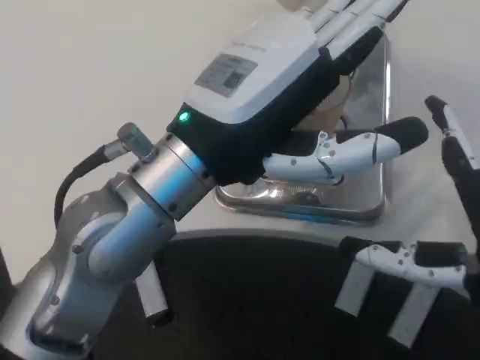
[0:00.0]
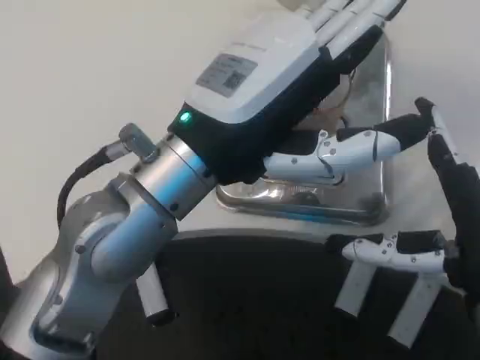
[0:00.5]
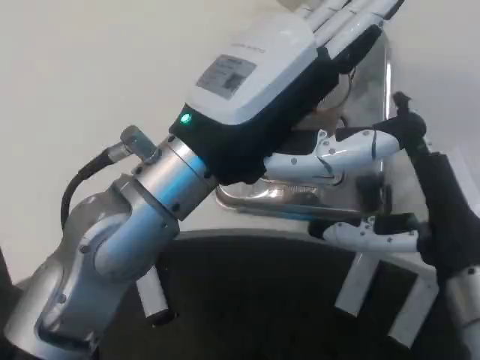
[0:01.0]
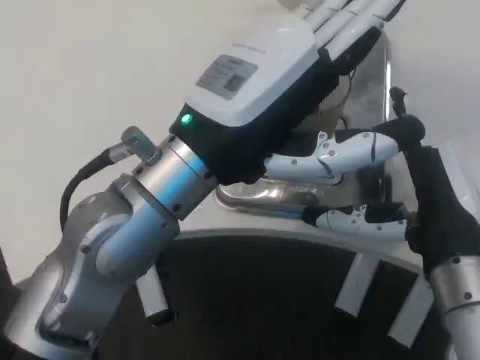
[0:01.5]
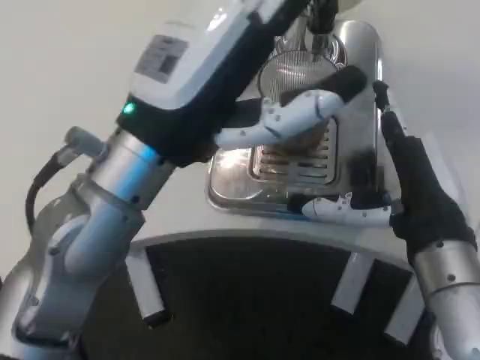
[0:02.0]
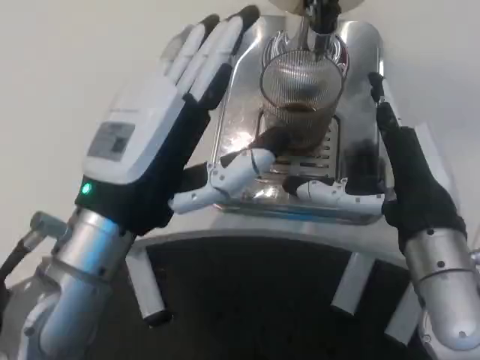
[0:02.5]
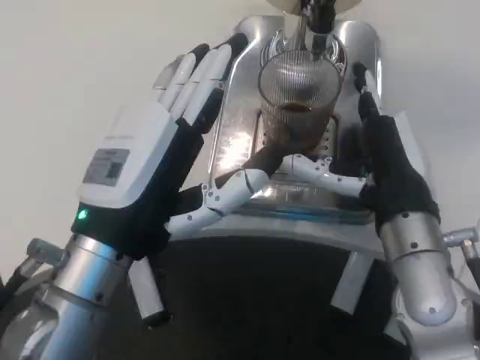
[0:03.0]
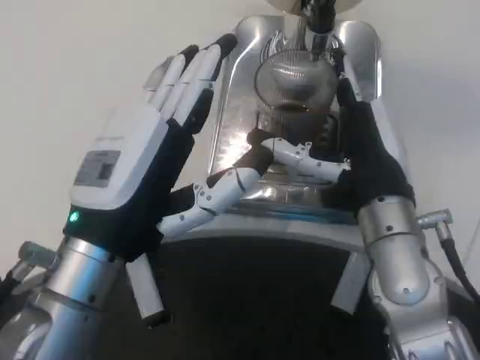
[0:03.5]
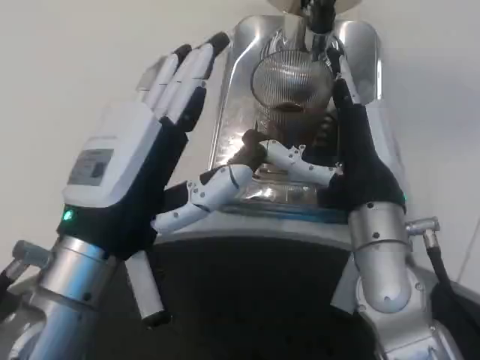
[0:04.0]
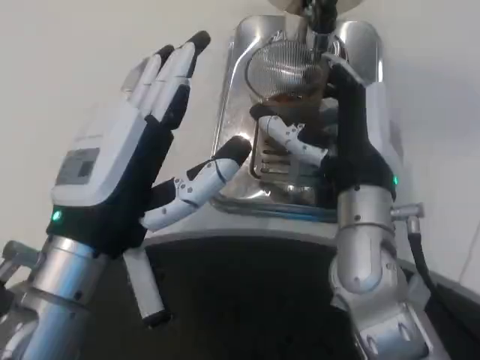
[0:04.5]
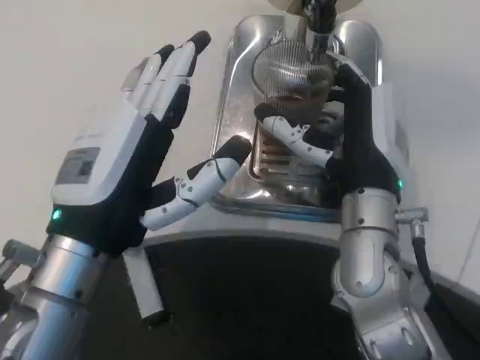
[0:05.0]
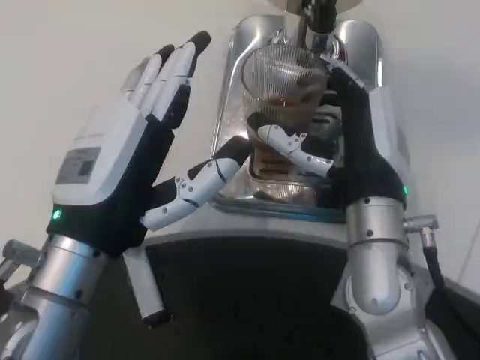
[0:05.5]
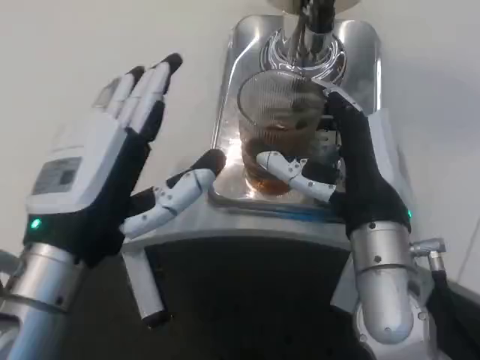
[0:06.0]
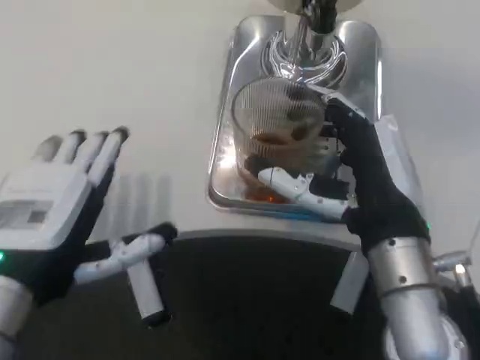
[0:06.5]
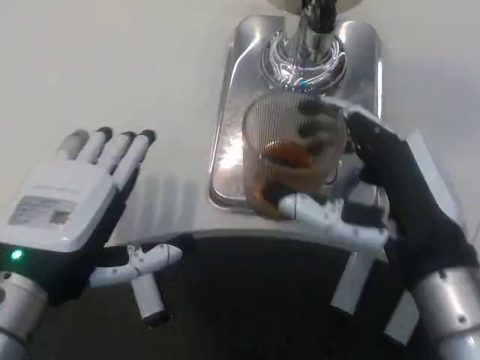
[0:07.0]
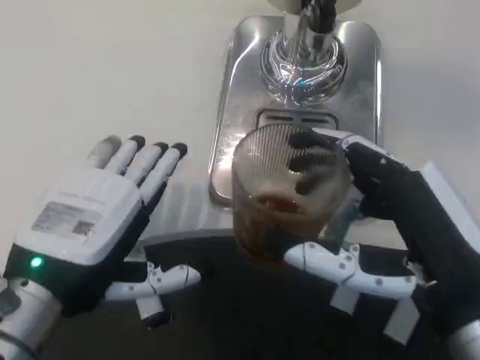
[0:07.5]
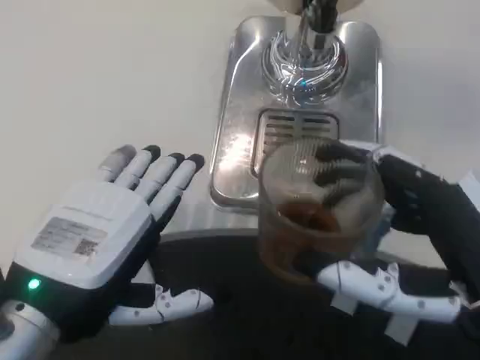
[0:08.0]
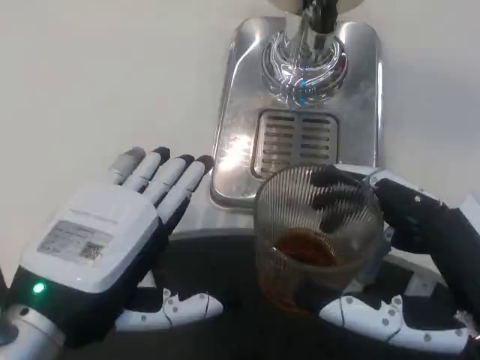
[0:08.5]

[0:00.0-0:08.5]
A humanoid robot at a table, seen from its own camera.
Task of the whole recording: Grasp the cup under the faucet to collect the drink, then remove the cup.
0.0 to 2.0 s: The right hand is displaced forward by approximately 10 cm.
2.0 to 4.0 s: The right hand goes roughly 5 cm forward. Meanwhile the left hand travels downward by roughly 5 cm.
4.0 to 6.5 s: The left hand is displaced to the left by about 5 cm. The right hand moves roughly 5 cm.
6.5 to 8.5 s: The right hand heads backward and to the right, covering about 15 cm.

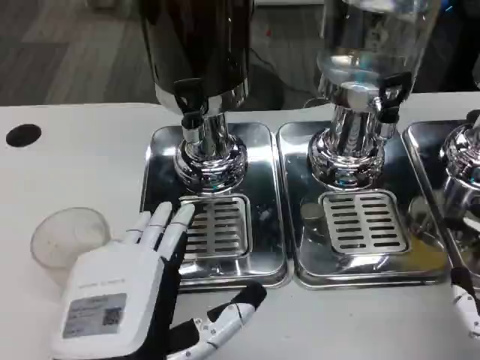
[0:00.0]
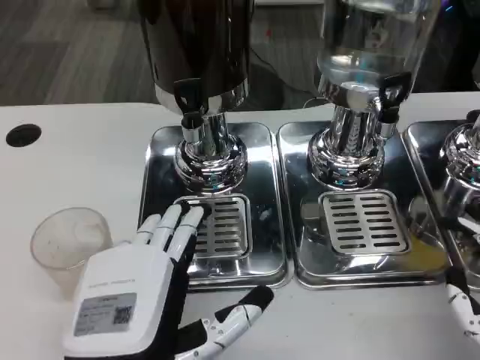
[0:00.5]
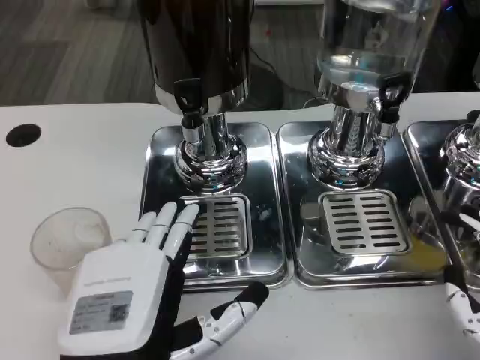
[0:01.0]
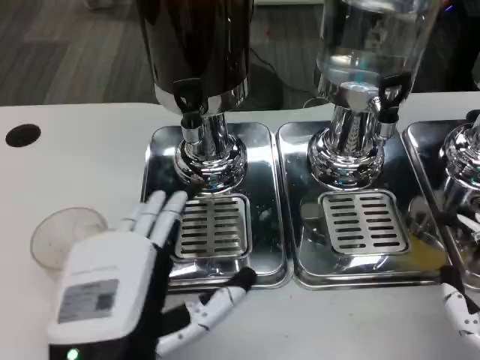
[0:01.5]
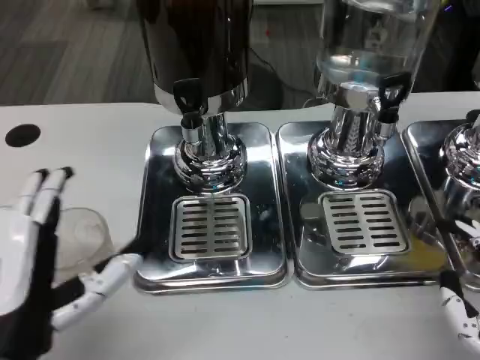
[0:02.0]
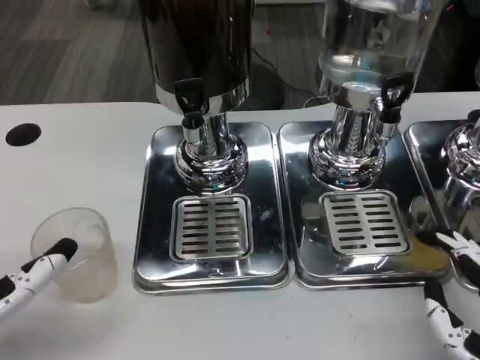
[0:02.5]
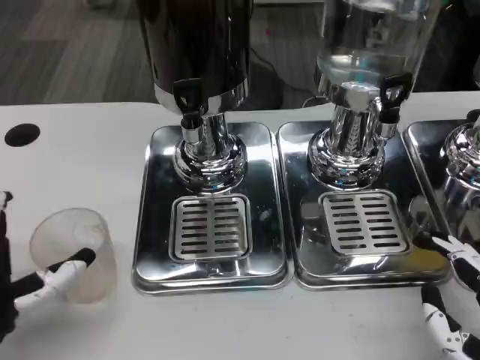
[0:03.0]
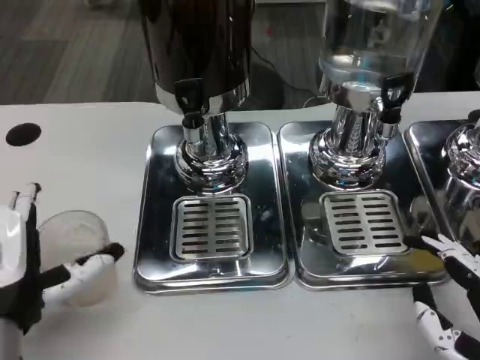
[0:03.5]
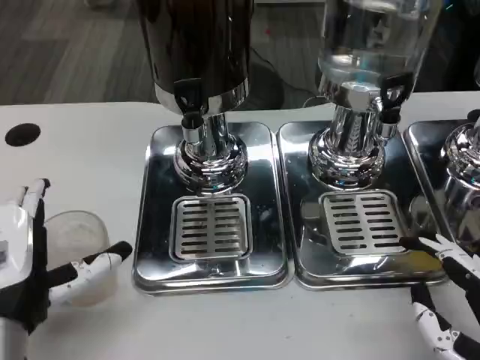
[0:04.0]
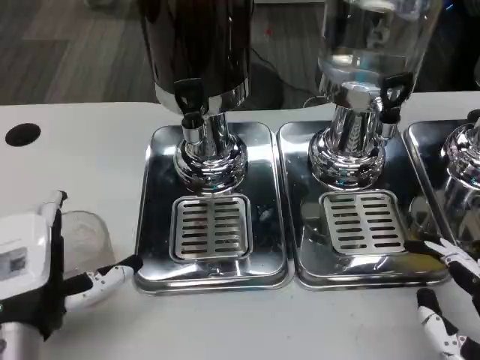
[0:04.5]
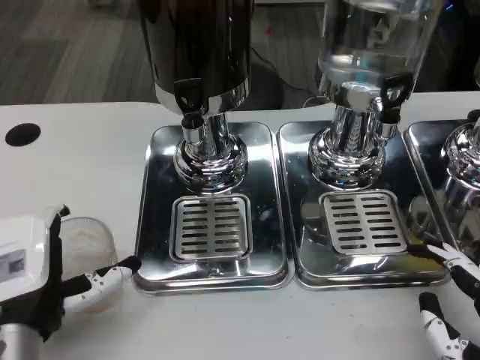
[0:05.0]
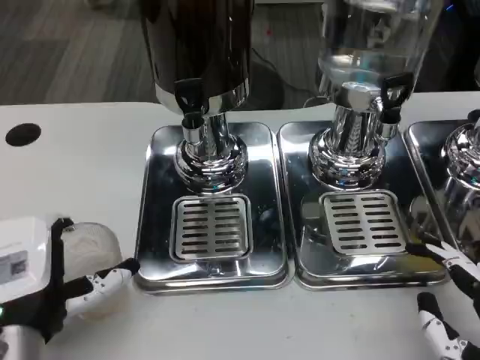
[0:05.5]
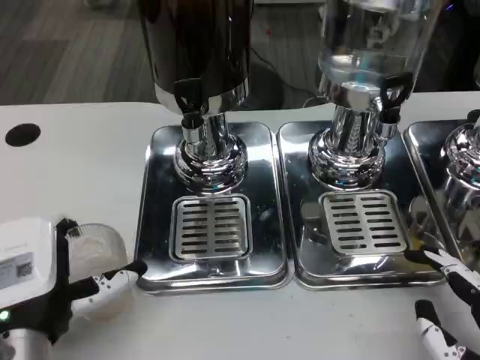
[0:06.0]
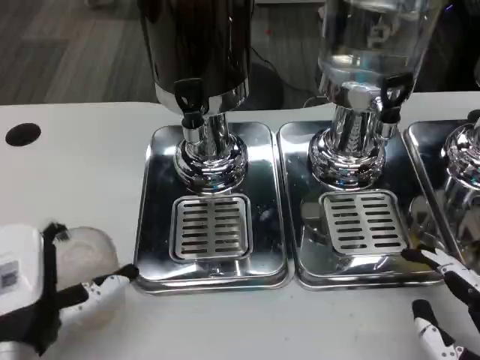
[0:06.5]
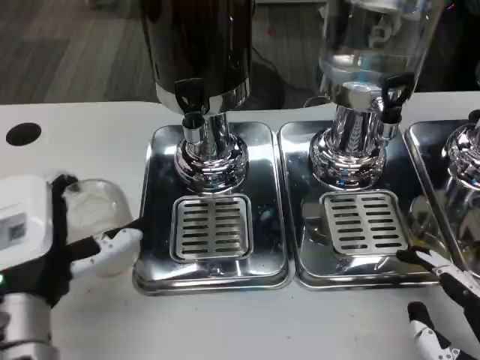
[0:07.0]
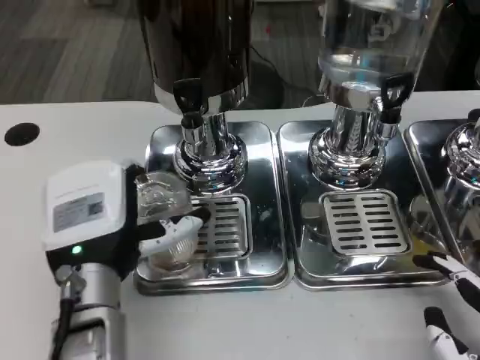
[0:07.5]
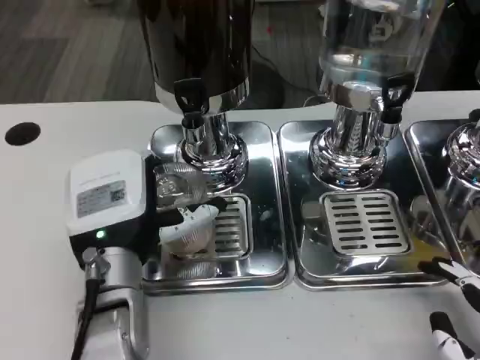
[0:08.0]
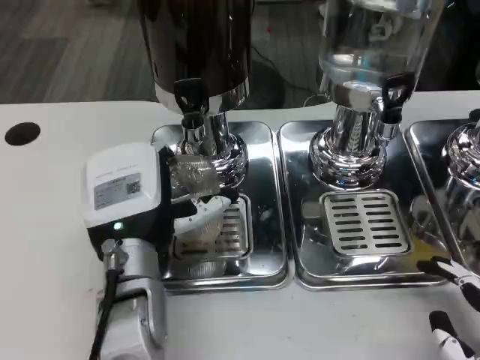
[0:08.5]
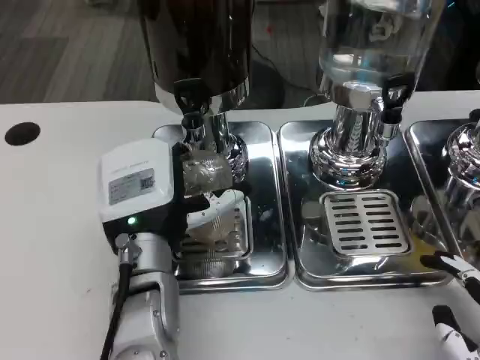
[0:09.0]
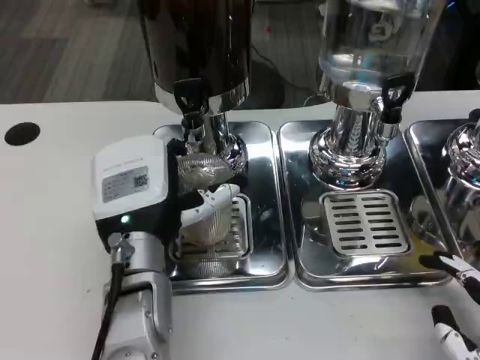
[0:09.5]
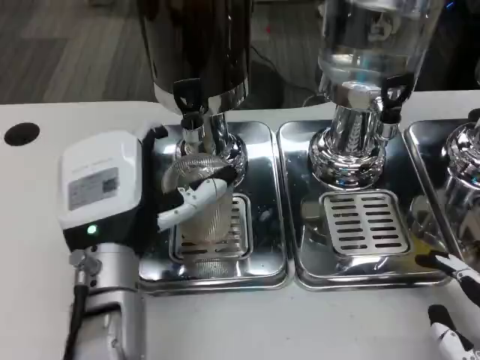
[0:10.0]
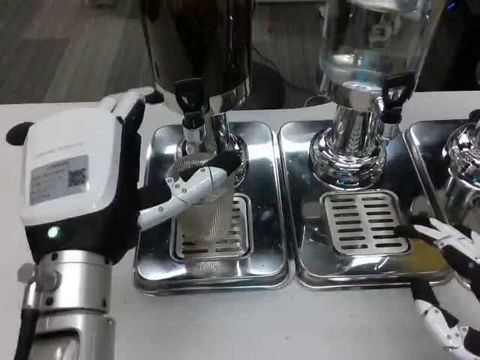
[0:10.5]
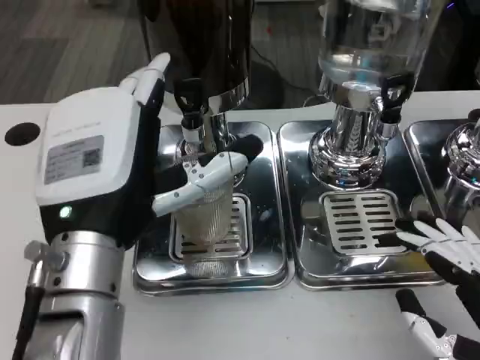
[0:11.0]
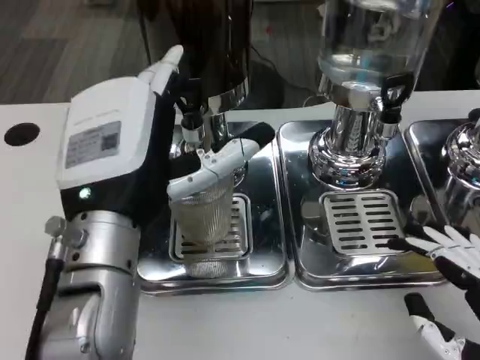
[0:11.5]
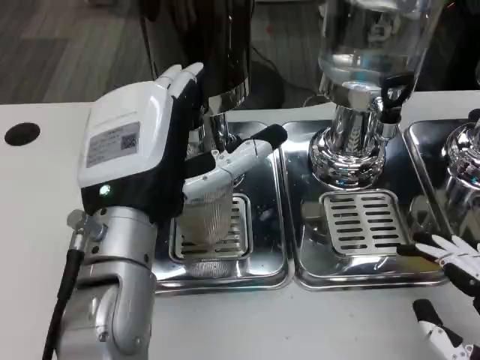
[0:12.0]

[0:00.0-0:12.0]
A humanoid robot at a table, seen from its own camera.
Task of the whole recording: Grasp the cup under the faucet to collect the drink, then remove the cup.
0.0 to 2.0 s: The left hand moves to the left, about 5 cm.
2.0 to 4.0 s: The left hand ends up roughly 5 cm from where it was.
4.0 to 6.0 s: The hands stay close to where they were, moving slightly.
6.0 to 8.0 s: The left hand moves forward and to the right, about 10 cm.
8.0 to 10.0 s: The hands stay close to where they were, moving slightly.
10.0 to 12.0 s: The left hand goes approximately 5 cm upward.

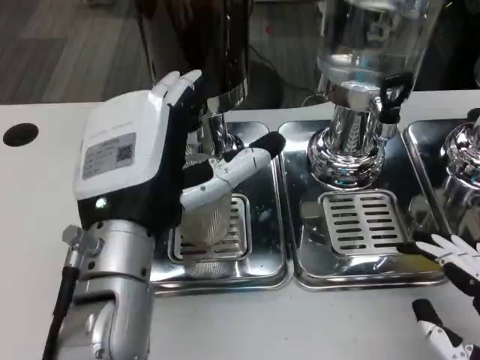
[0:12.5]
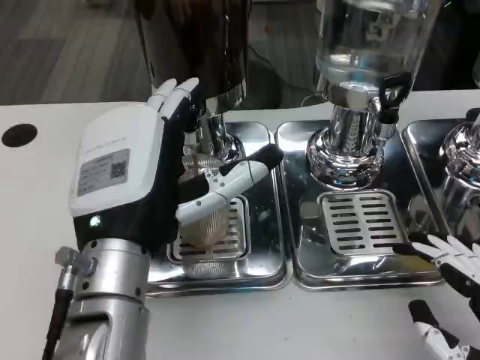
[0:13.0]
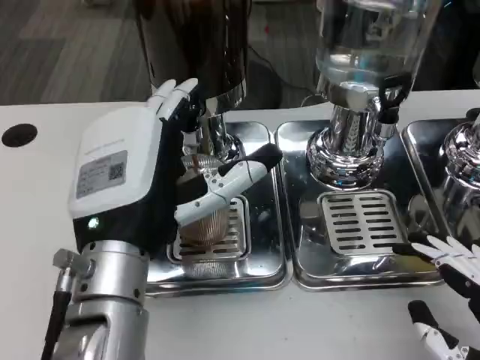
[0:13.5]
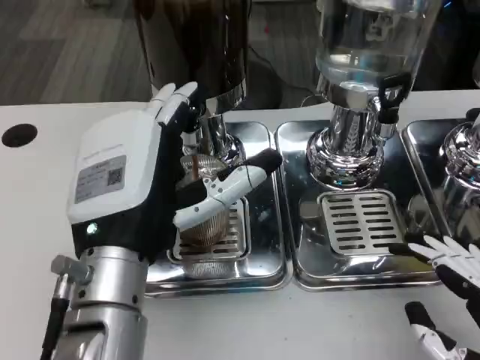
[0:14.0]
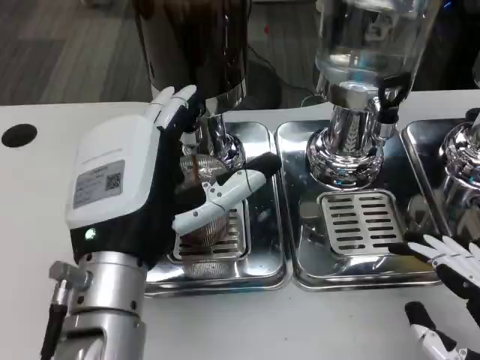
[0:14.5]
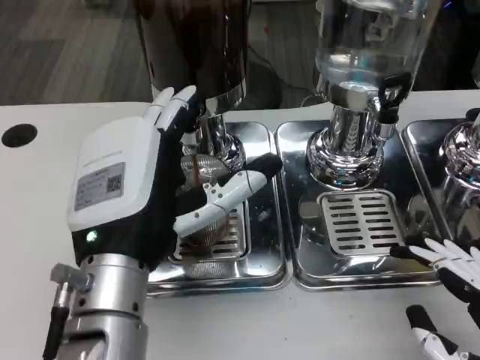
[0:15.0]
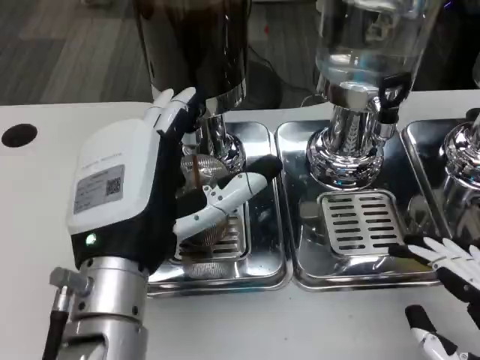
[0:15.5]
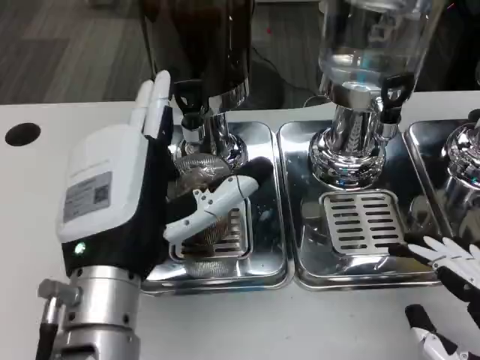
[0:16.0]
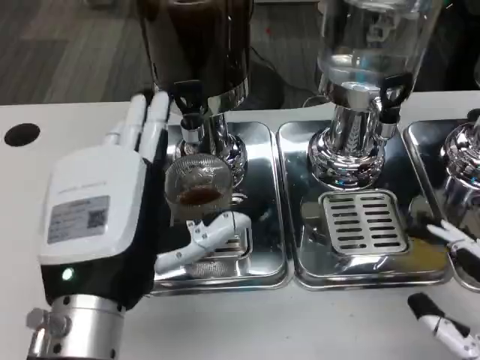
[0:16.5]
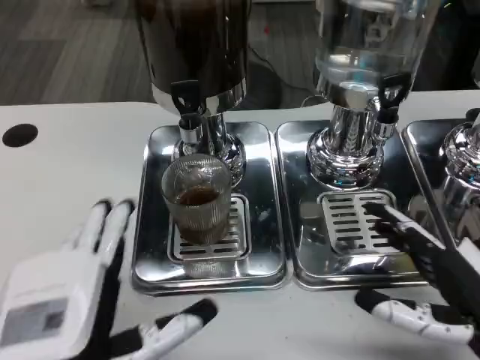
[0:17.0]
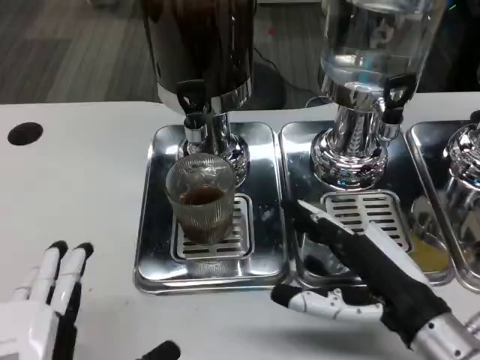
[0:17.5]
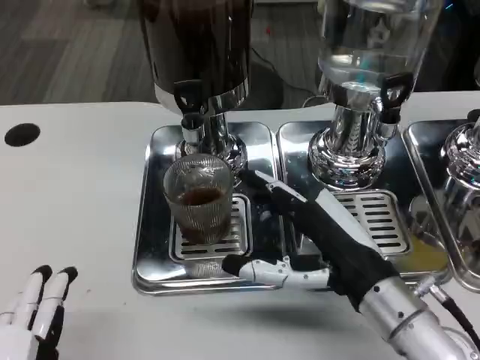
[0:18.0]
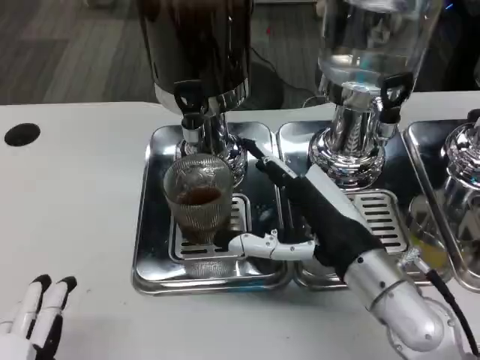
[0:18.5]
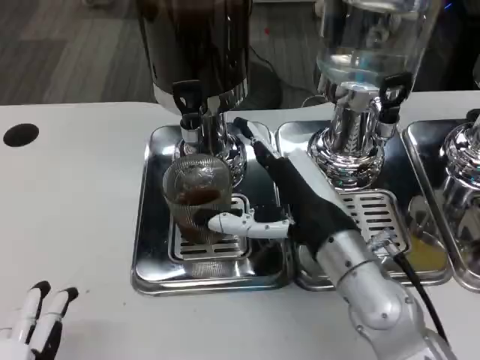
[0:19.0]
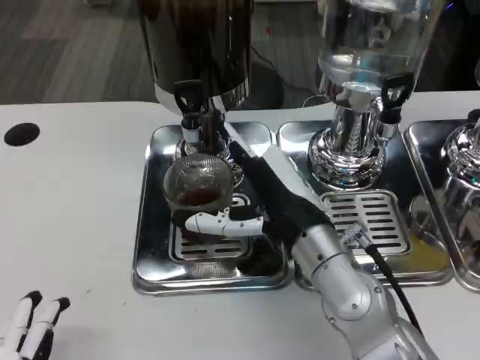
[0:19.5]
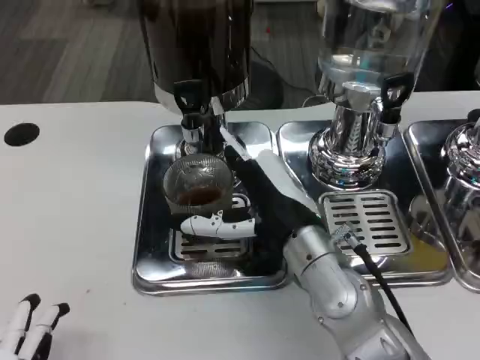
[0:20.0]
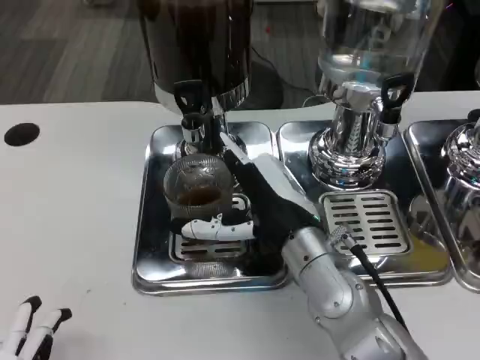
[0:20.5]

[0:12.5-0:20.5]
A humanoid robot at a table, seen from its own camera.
Task of the whole recording: Grasp the cup under the faucet to collect the drink, then remove the cup.
16.5 to 18.5 s: The left hand shifts about 15 cm backward and to the left. Meanwhile the right hand goes roughly 20 cm to the left and forward.
18.5 to 20.5 s: The right hand heads to the left, covering some 5 cm.
